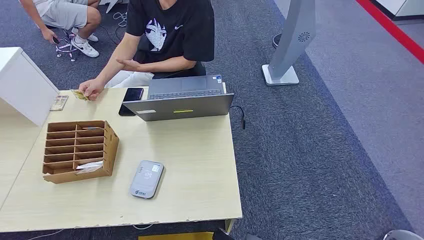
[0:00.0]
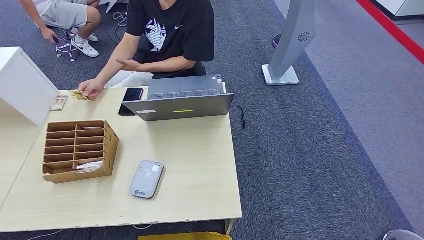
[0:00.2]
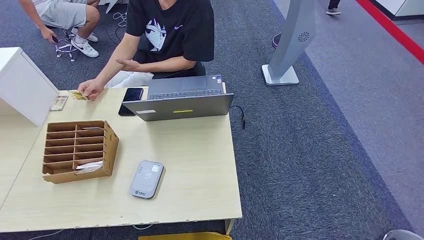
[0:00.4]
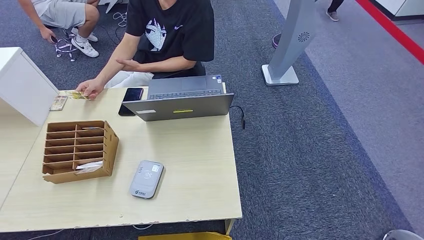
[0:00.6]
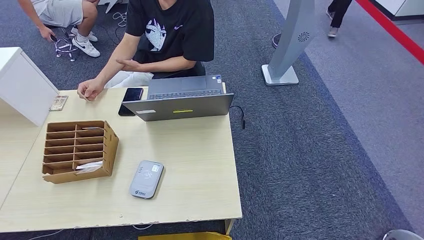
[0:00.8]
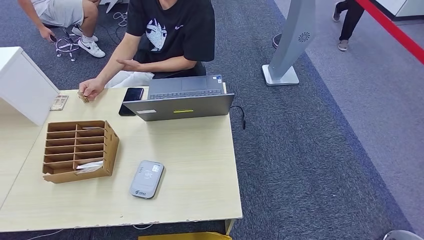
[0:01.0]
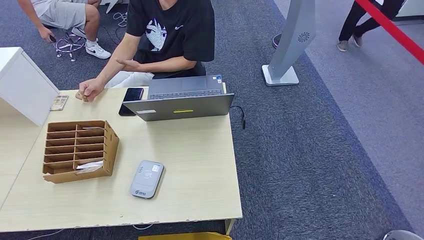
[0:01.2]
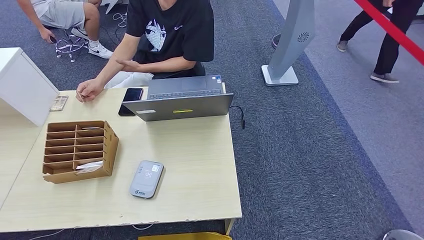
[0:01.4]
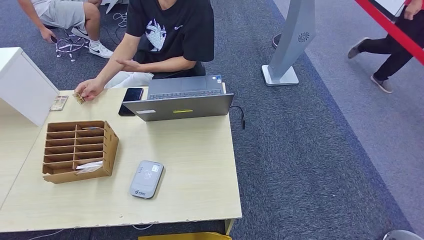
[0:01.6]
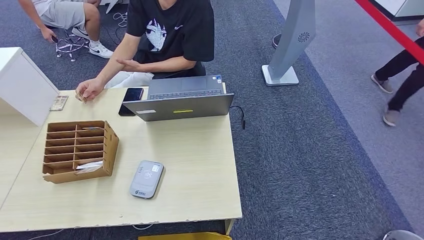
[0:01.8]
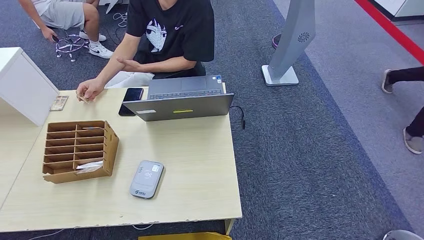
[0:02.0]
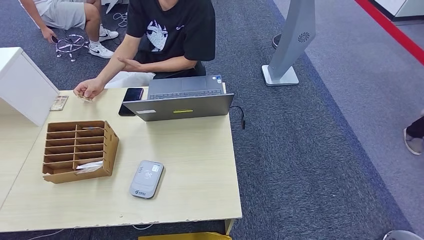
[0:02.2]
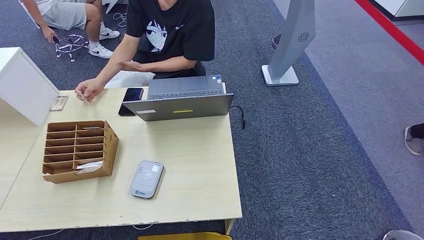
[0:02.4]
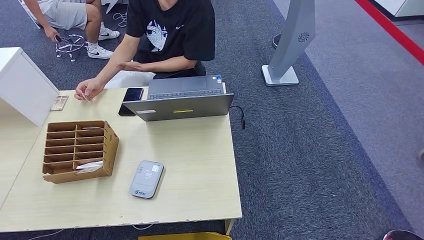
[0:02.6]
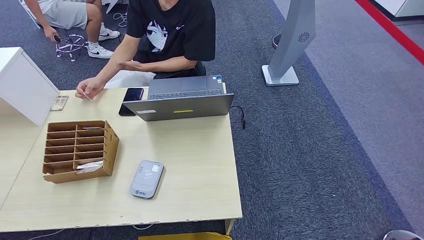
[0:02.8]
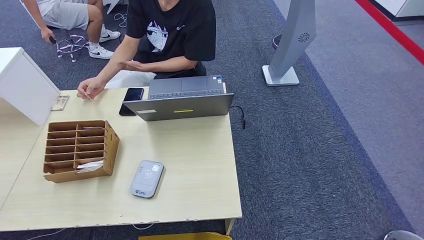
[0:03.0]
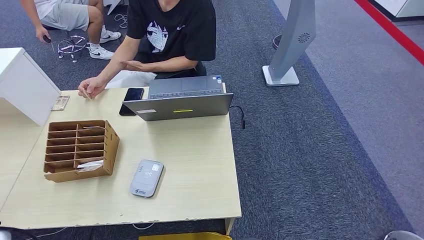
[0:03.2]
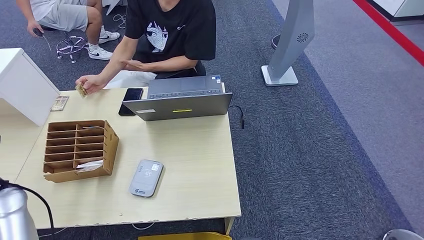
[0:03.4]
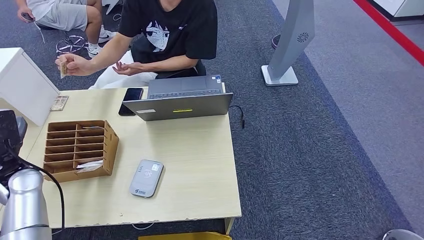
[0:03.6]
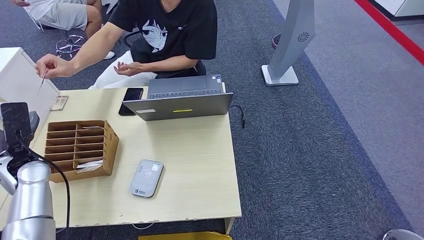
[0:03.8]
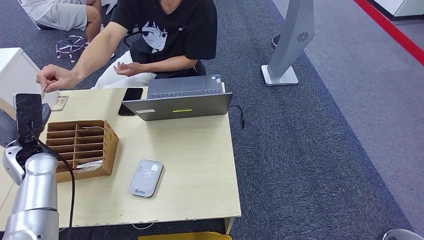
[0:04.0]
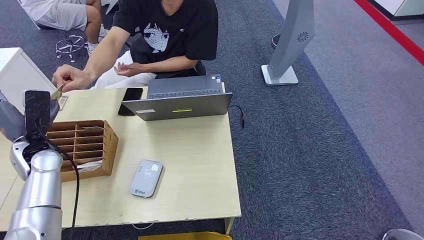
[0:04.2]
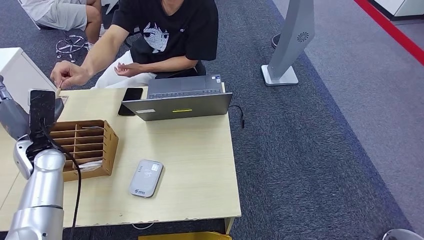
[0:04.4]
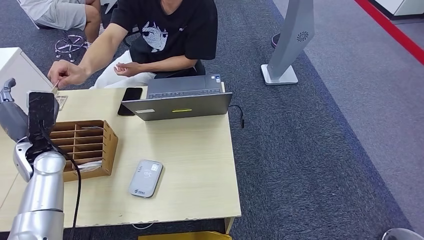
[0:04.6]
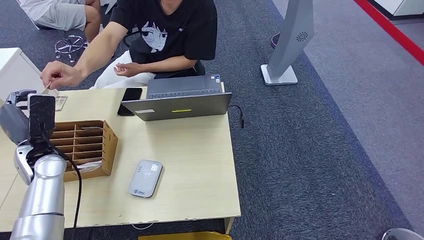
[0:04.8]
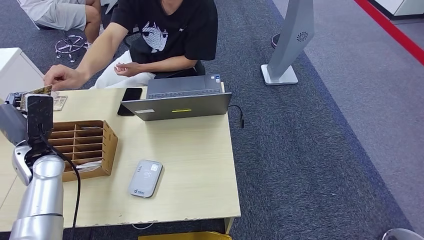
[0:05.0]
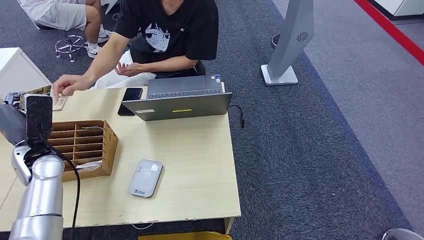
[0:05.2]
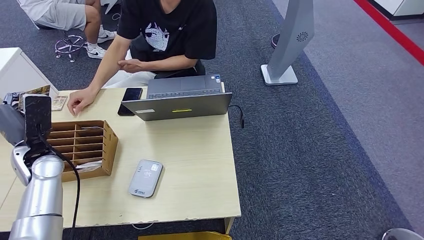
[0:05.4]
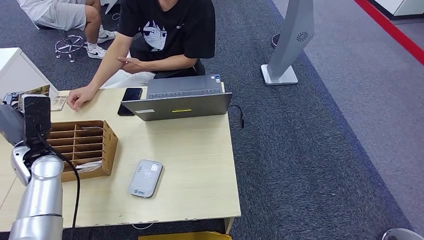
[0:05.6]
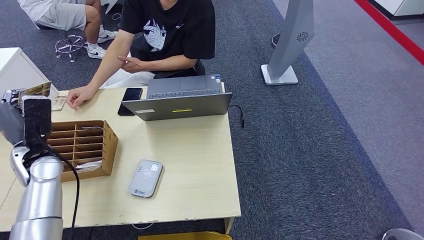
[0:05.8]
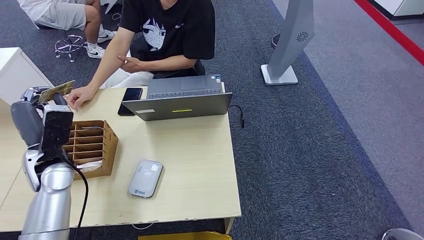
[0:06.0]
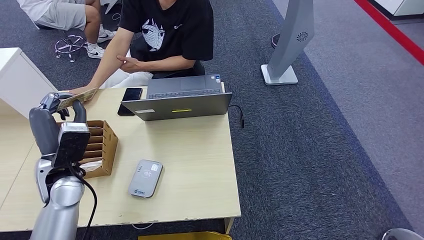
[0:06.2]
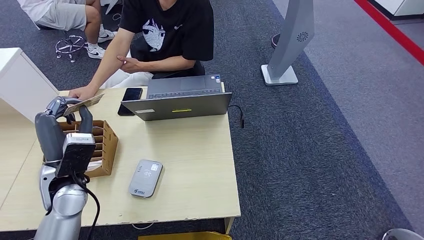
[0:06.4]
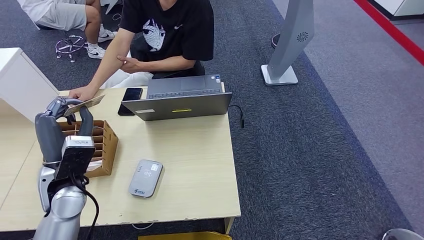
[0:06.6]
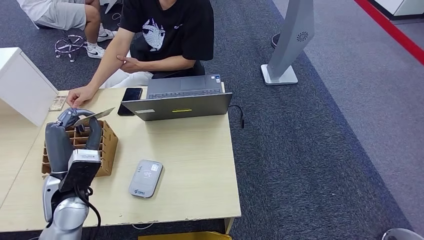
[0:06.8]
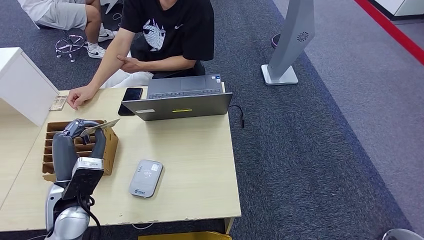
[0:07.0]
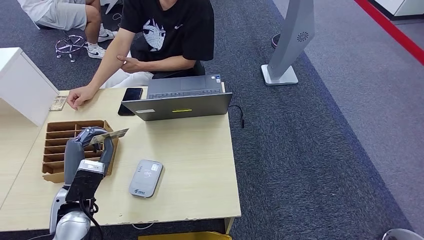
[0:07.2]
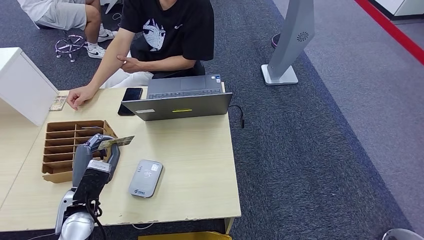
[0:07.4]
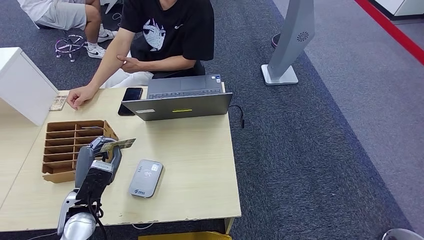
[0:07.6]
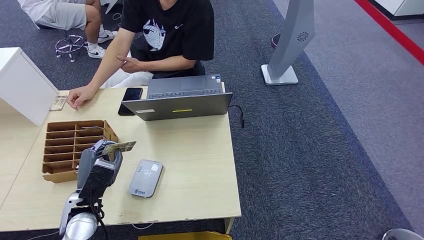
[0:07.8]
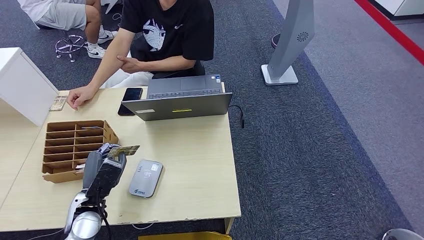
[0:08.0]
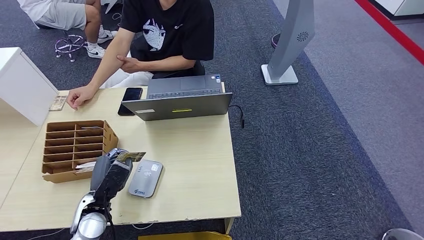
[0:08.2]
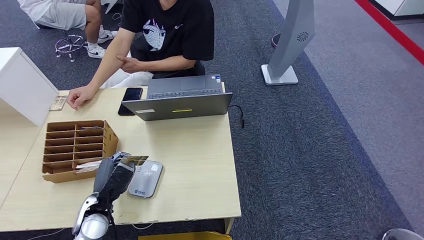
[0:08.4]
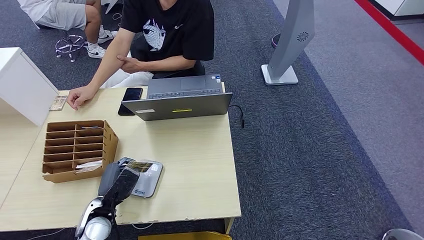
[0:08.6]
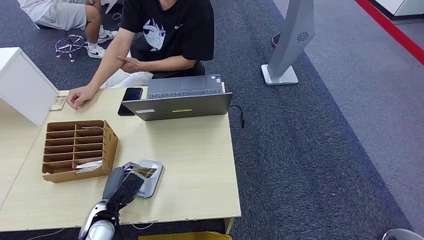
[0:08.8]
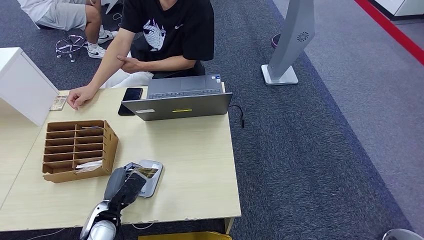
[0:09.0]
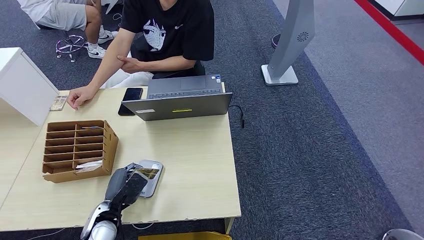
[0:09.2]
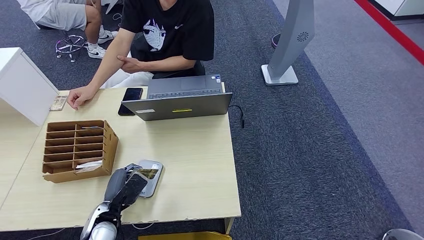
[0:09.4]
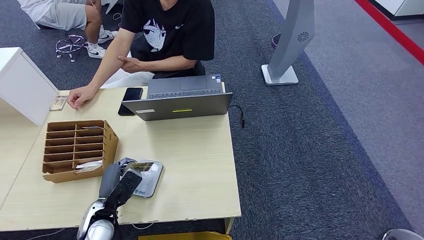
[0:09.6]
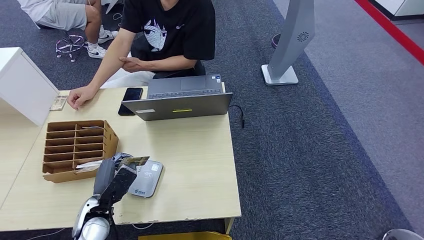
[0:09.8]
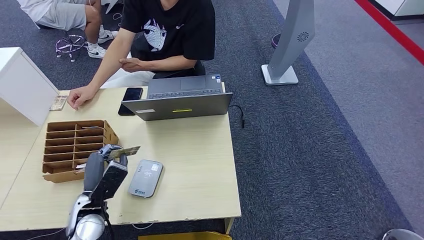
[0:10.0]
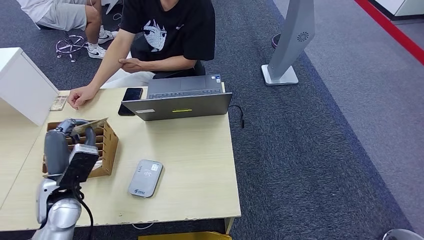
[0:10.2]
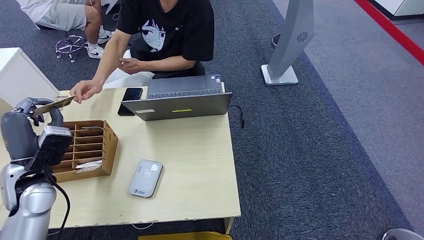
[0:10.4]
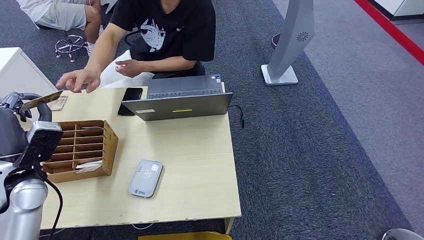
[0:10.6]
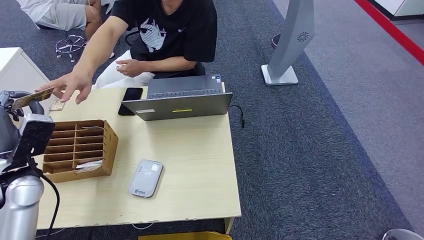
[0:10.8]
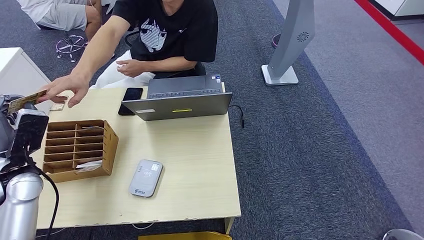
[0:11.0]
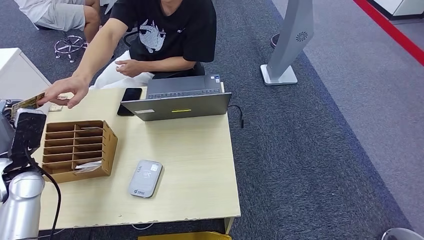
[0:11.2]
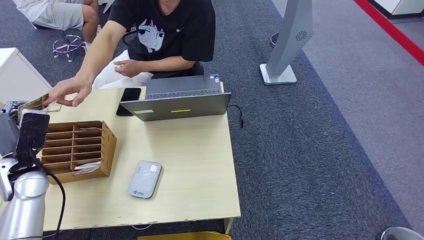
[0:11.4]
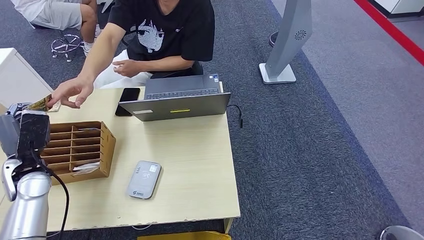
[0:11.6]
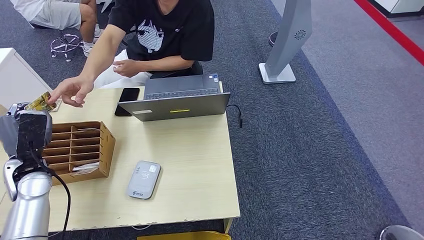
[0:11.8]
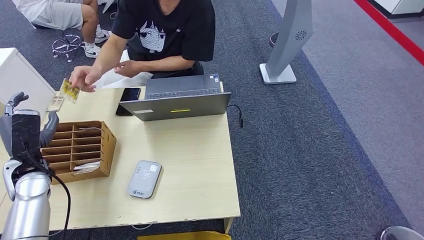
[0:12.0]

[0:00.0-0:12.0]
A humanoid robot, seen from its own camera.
Step, 0:00.0 to 0:05.8: Take the ID card from the person's hand.
Step, 0:06.2 to 0:09.2: Place the ID card on the card reader.
0:01.6 to 0:03.0: The left hand travels upward and forward by approximately 20 cm.
0:03.0 to 0:04.4: The left hand goes about 25 cm forward.
0:04.4 to 0:06.0: The left hand changes place by roughly 5 cm.
0:06.0 to 0:07.6: The left hand travels backward, downward and to the right by approximately 15 cm.
0:07.6 to 0:09.0: The left hand is displaced downward by some 10 cm.
0:09.0 to 0:10.4: The left hand is displaced upward, to the left and forward by approximately 20 cm.
0:10.4 to 0:12.0: The left hand changes place by roughly 5 cm.

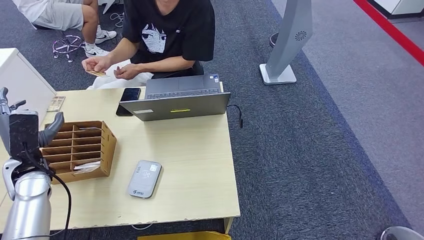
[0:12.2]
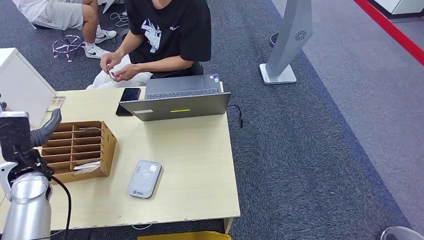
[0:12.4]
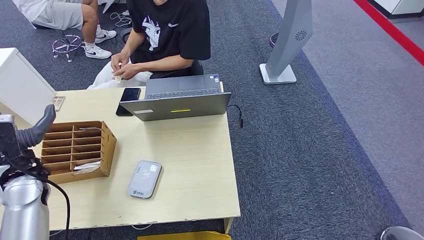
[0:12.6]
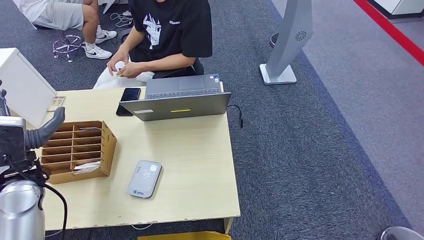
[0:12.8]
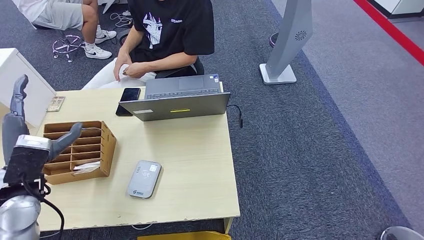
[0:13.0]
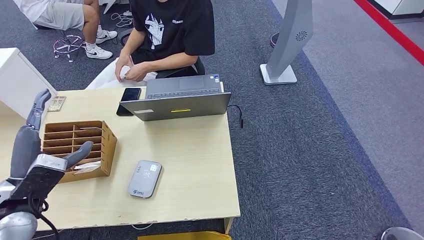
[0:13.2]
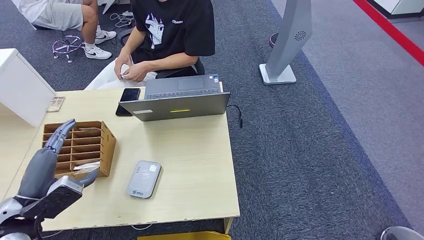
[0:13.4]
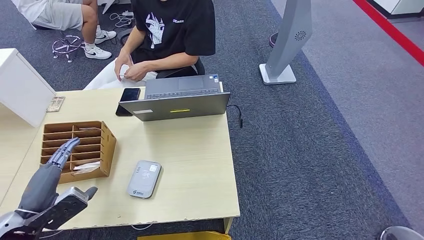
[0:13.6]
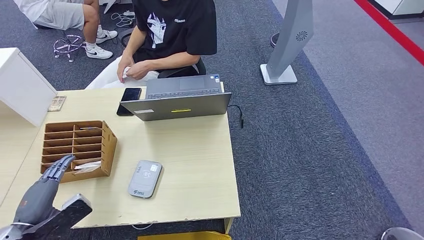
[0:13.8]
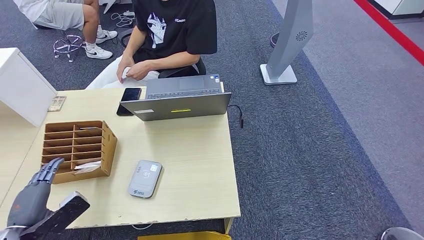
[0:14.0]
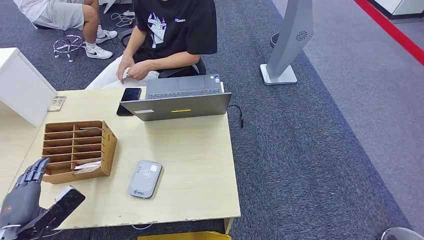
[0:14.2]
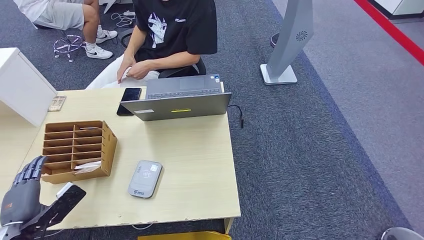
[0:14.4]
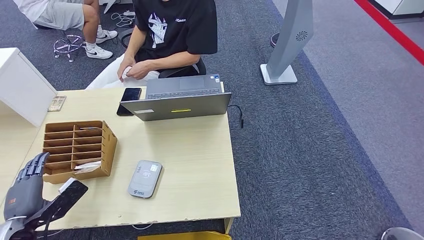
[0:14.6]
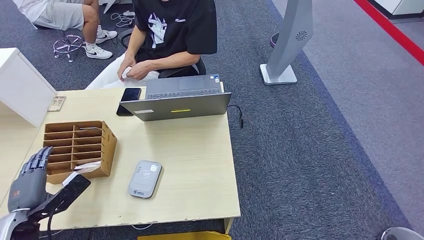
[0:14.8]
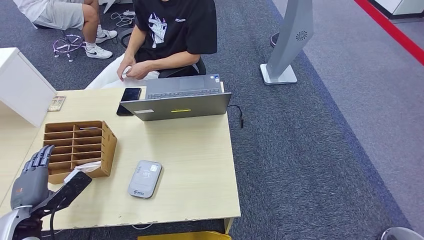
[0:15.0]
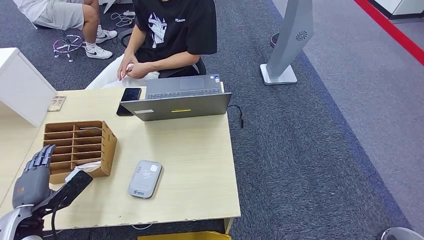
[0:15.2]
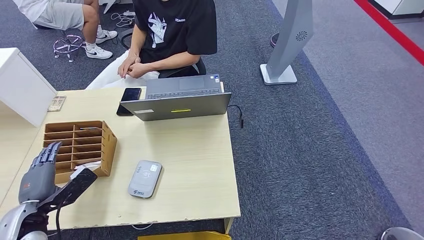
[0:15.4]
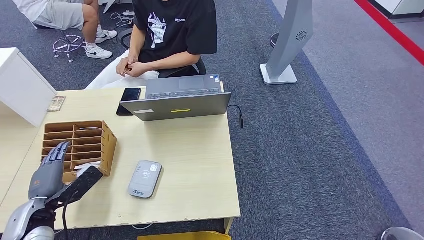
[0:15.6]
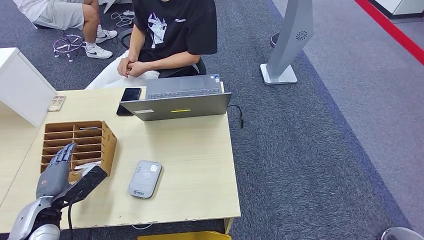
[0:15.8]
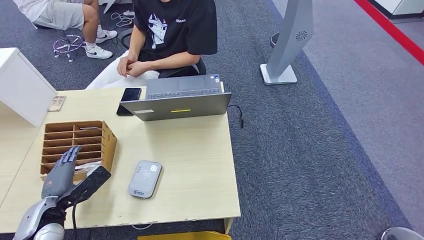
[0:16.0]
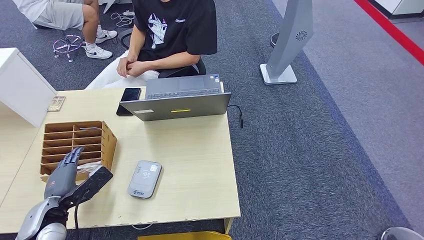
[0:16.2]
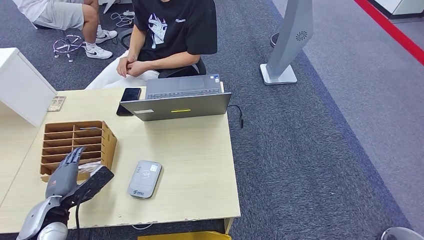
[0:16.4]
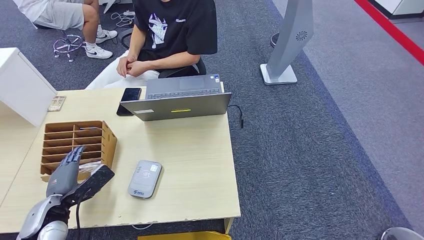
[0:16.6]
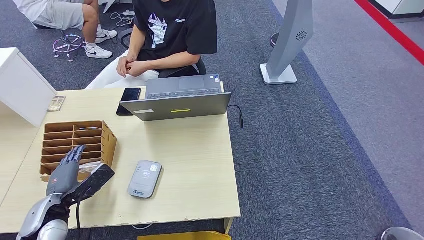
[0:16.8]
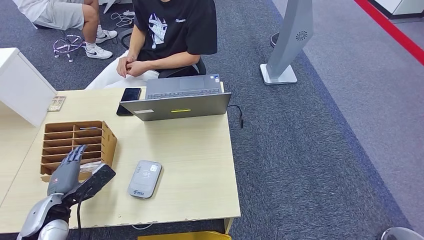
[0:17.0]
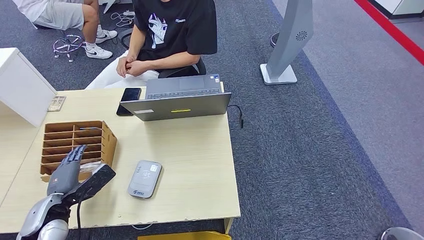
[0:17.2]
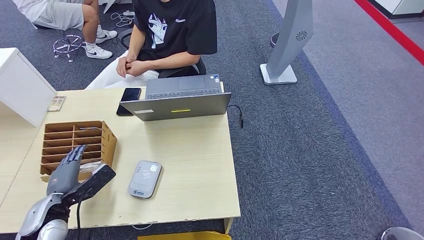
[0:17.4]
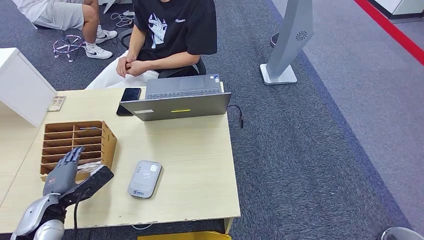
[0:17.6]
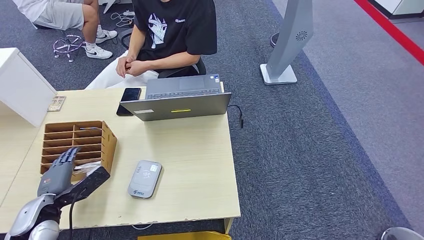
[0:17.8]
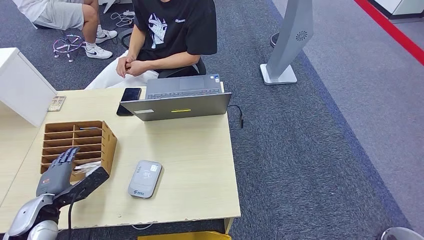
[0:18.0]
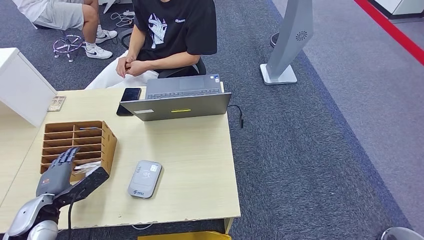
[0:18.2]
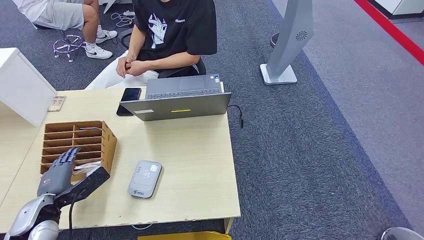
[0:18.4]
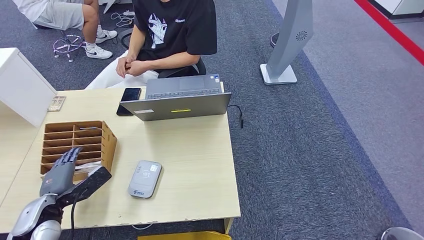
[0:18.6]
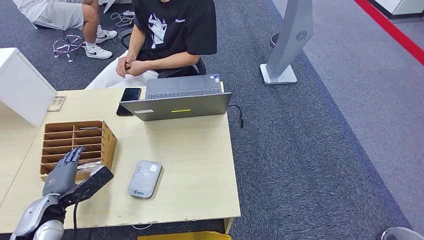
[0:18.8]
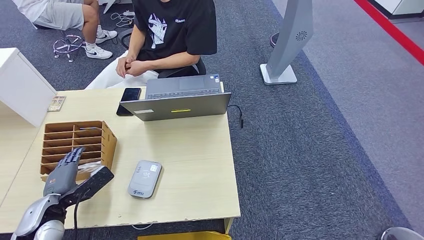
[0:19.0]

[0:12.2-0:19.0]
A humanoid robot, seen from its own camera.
0:12.2 to 0:13.6: The left hand goes roughly 15 cm backward.
0:15.0 to 0:17.6: The hands stay close to where they were, moving slightly.
